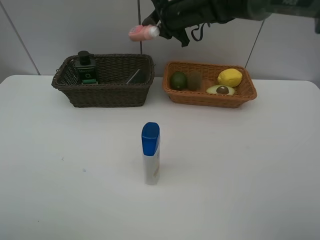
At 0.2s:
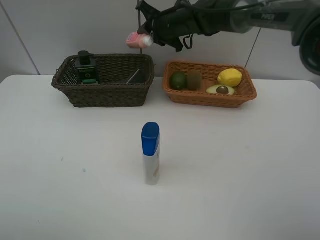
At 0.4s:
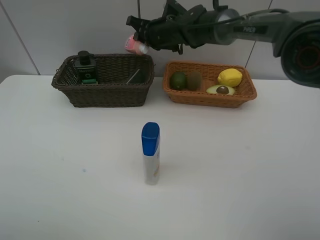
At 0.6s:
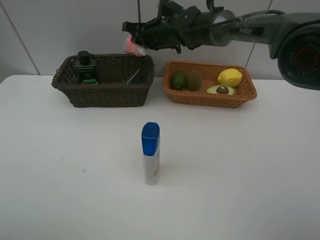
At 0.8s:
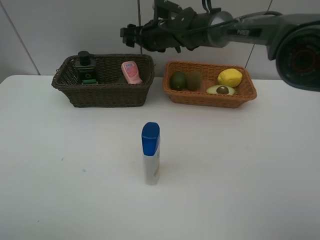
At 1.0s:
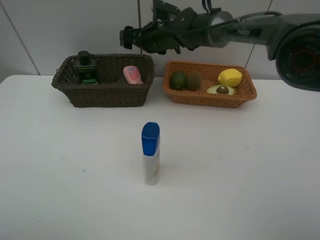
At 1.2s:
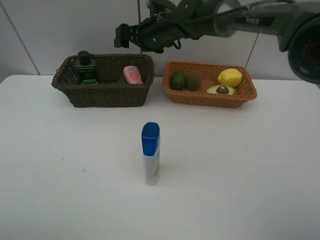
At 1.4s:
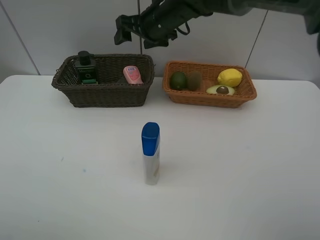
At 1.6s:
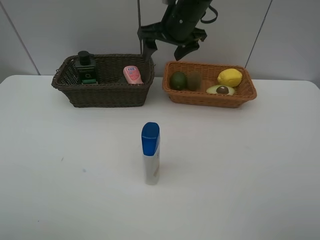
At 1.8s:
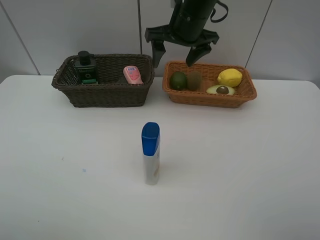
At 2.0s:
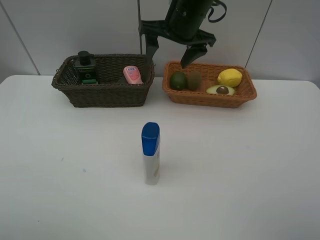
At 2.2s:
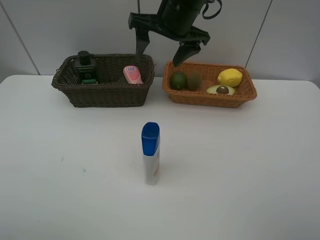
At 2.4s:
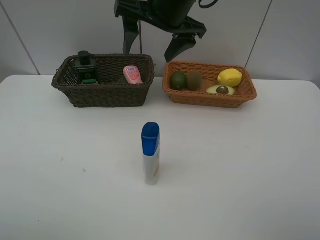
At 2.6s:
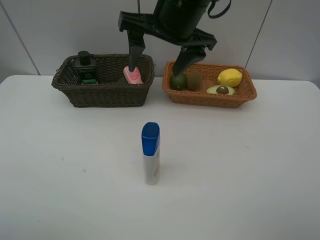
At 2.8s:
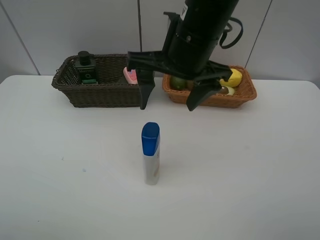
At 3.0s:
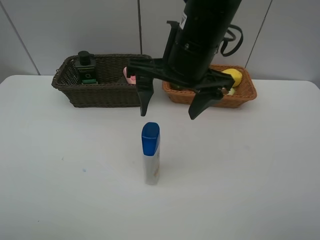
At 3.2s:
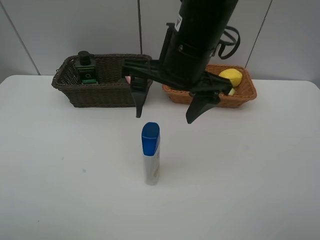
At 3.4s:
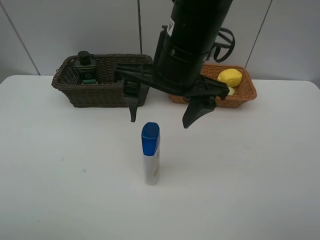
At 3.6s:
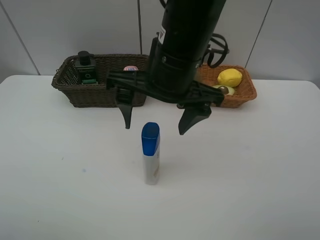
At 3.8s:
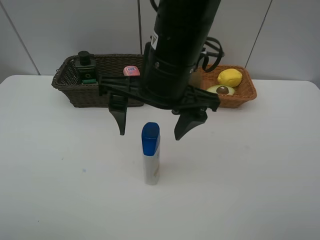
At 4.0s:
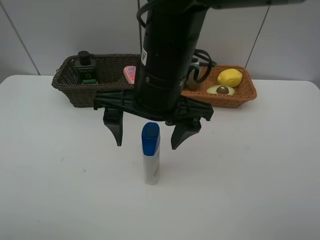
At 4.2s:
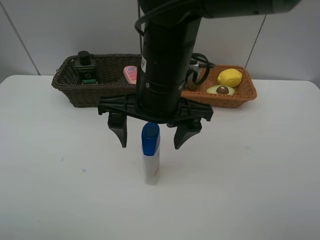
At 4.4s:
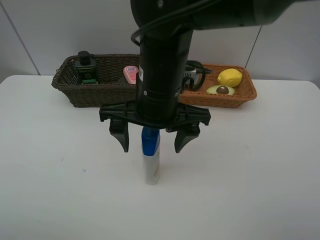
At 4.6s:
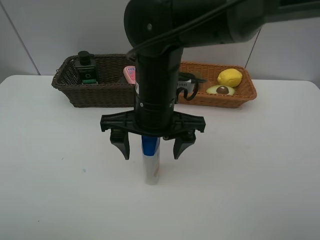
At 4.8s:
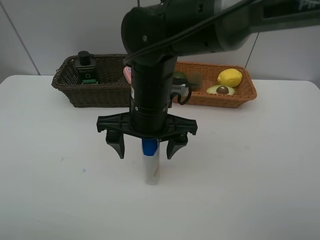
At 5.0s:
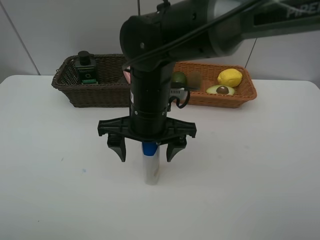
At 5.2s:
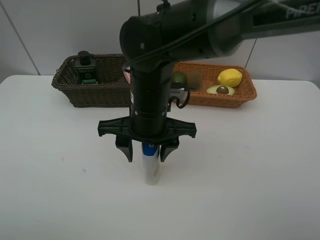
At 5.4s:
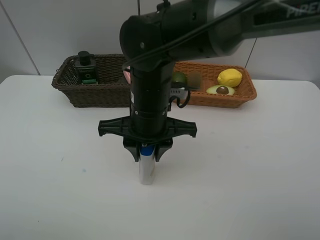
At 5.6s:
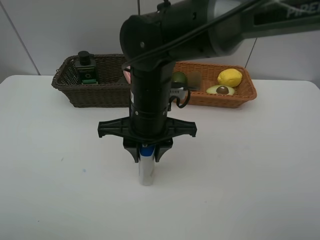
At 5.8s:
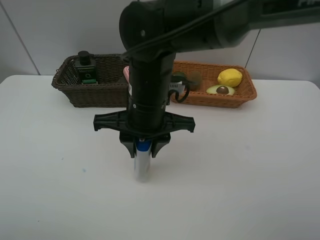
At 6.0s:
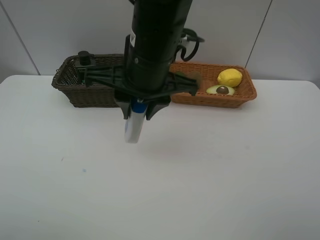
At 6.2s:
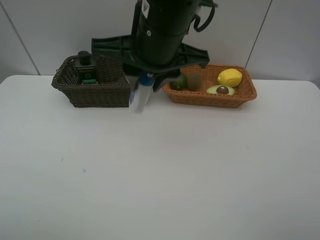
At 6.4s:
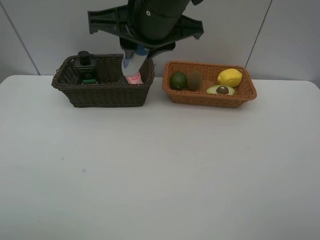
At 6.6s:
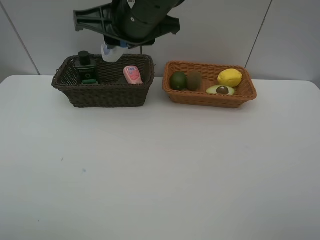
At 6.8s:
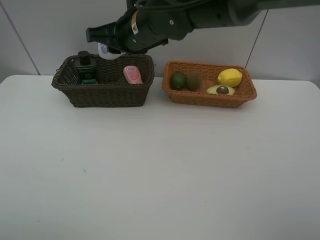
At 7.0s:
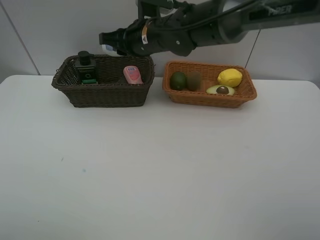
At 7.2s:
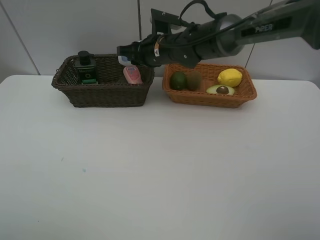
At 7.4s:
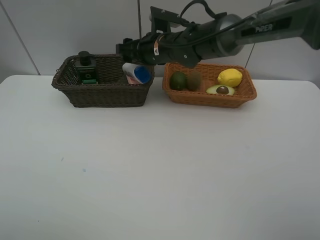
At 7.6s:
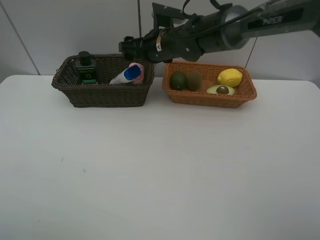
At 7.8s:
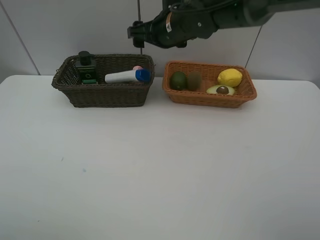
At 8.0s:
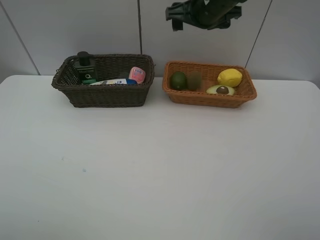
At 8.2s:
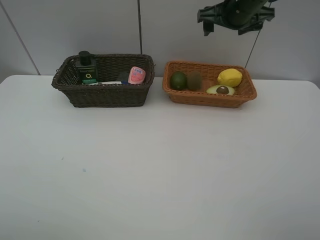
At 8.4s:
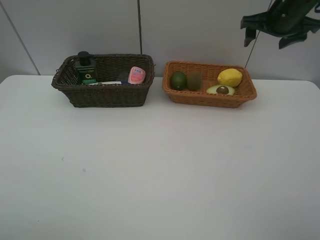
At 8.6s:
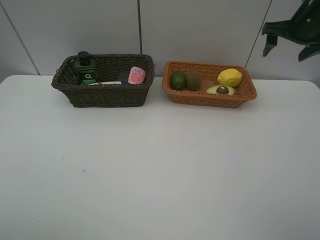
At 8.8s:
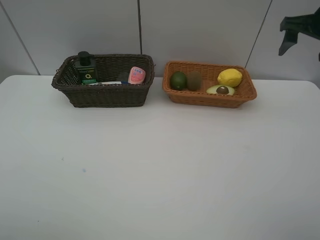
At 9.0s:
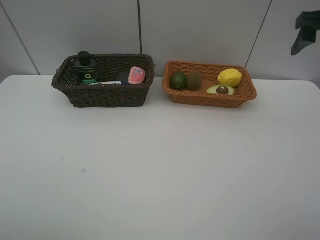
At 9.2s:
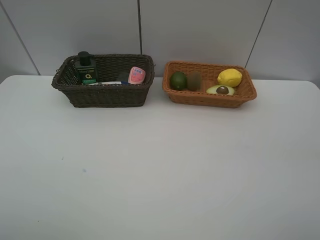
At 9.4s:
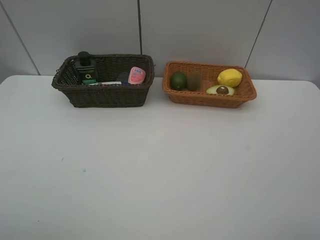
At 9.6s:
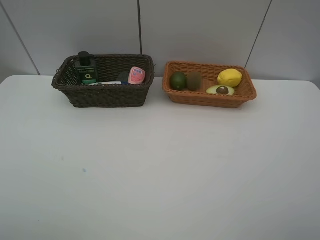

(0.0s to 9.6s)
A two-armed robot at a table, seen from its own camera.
Task of the whole recording: Place multiple objects separately in different baskets.
Step, 1.2s - 5.8s: Pick up the shampoo with right gripper.
Step, 6.0s - 7.4s: Place the shampoo in the dark basket with right gripper.
0.0s - 1.6s: The right gripper heads backward, covering about 5 cm, and opens.
1.6s - 3.2s: The right gripper goes roughly 15 cm backward.
3.2s - 4.8s: The right gripper is displaced downward and to the left by approximately 10 cm.
4.8s - 6.4s: The right gripper shifts approximately 15 cm upward, and closes its fingers.
6.4s - 8.0s: The right gripper goes about 20 cm forward and to the right, and opens its fingers.
8.0s - 9.6s: The right gripper moves backward and to the right, about 40 cm.

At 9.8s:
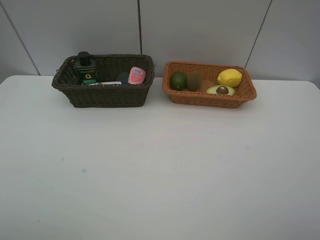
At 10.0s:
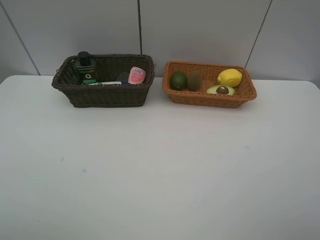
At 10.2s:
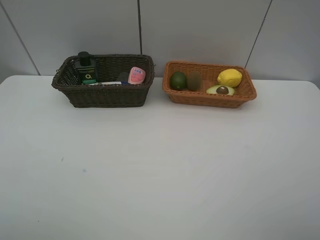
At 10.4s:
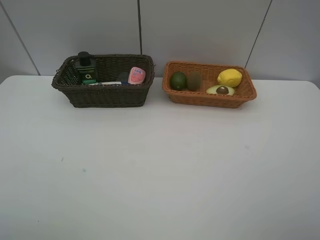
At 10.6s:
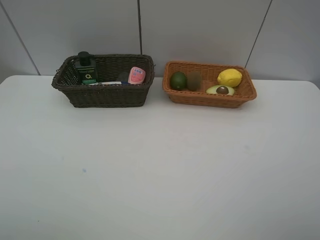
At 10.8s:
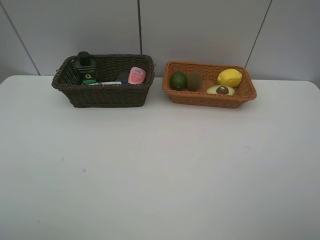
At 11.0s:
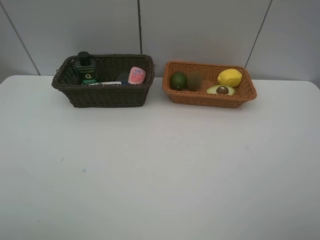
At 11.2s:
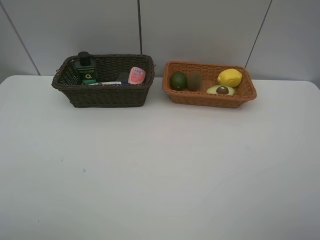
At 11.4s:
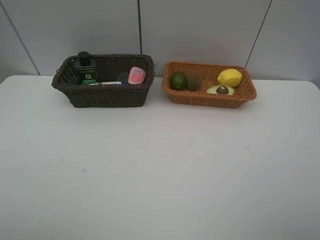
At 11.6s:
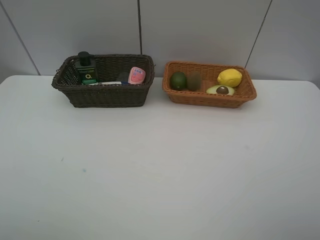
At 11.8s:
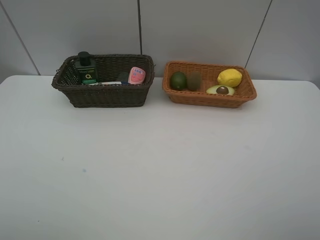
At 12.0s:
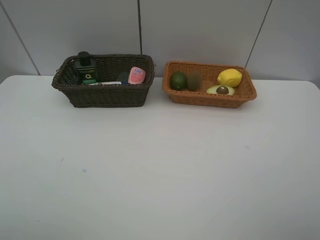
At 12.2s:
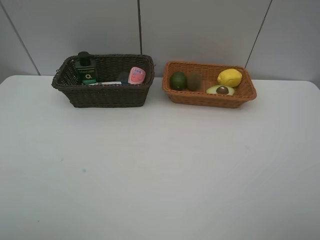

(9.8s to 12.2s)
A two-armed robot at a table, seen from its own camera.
Task of the whole recording: Place multiple objects separately in different baskets.
11.0s - 12.2s: Neither gripper changes place.

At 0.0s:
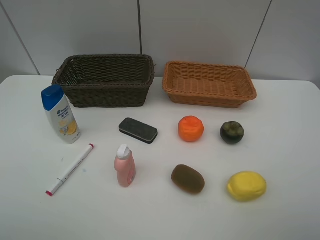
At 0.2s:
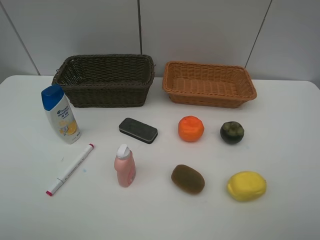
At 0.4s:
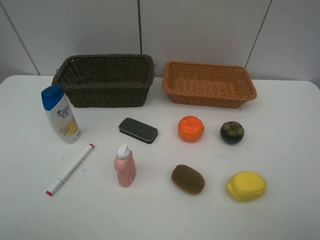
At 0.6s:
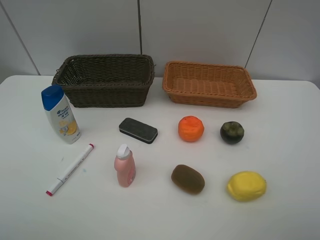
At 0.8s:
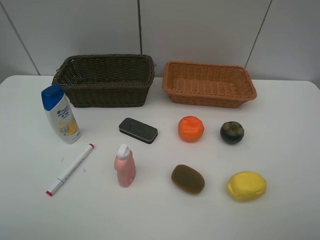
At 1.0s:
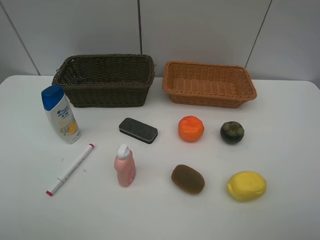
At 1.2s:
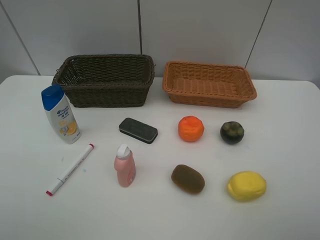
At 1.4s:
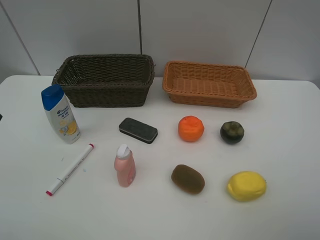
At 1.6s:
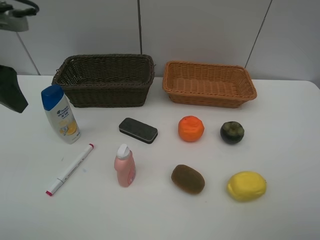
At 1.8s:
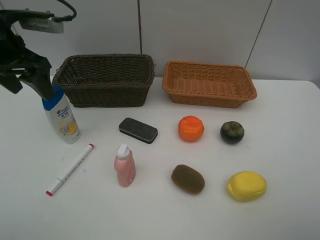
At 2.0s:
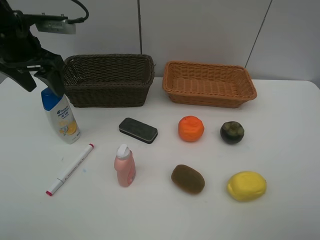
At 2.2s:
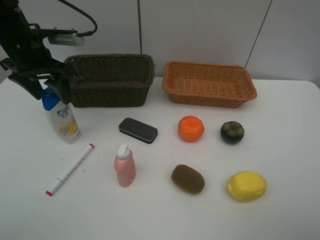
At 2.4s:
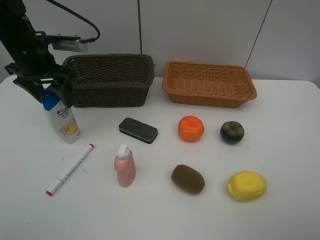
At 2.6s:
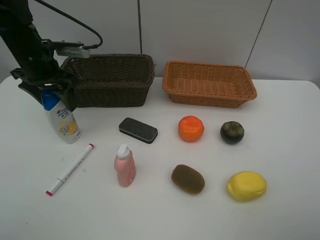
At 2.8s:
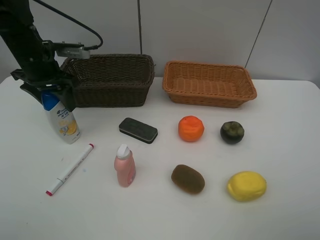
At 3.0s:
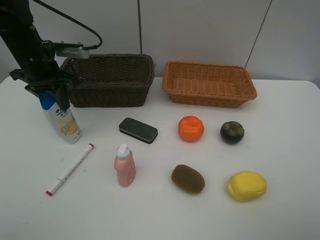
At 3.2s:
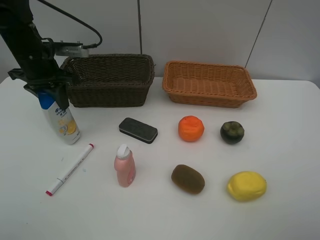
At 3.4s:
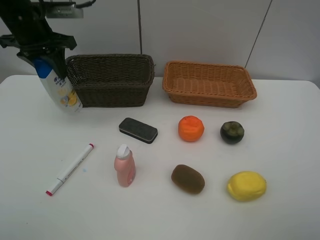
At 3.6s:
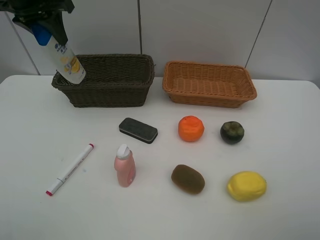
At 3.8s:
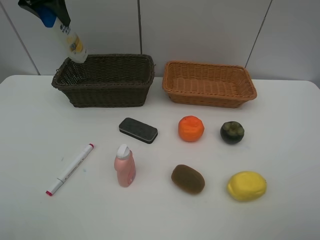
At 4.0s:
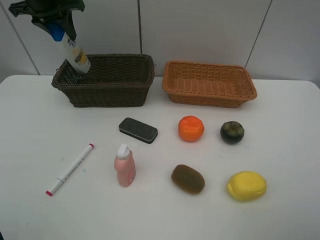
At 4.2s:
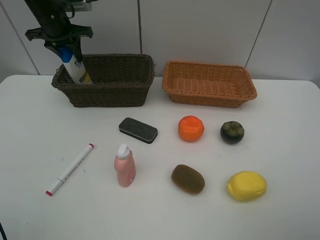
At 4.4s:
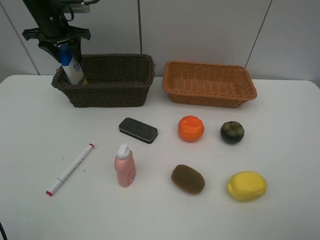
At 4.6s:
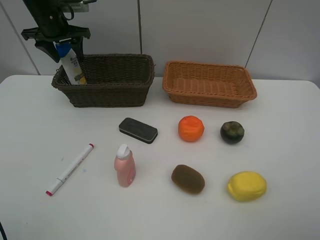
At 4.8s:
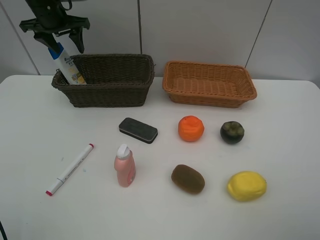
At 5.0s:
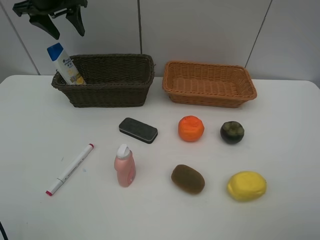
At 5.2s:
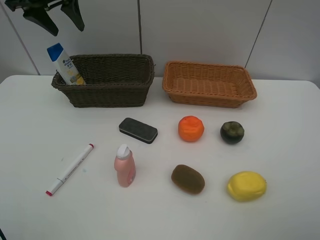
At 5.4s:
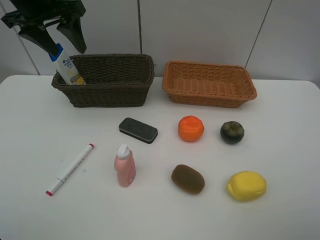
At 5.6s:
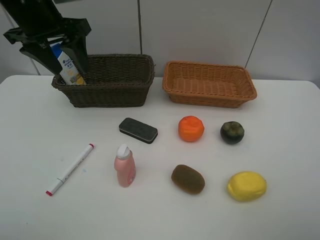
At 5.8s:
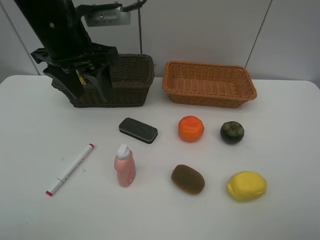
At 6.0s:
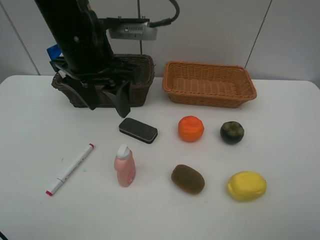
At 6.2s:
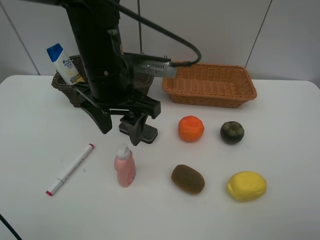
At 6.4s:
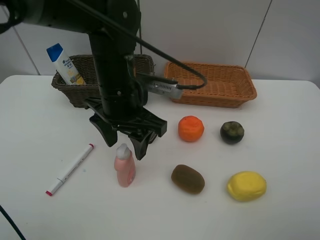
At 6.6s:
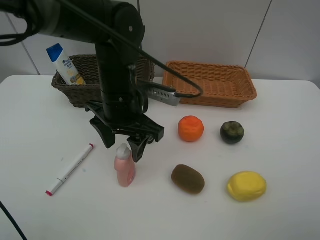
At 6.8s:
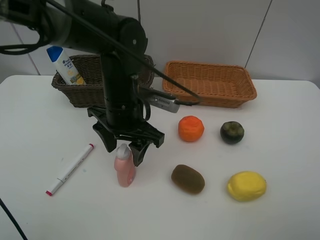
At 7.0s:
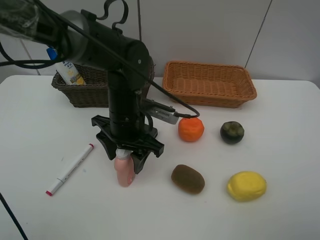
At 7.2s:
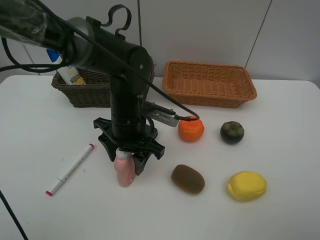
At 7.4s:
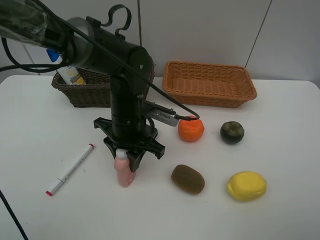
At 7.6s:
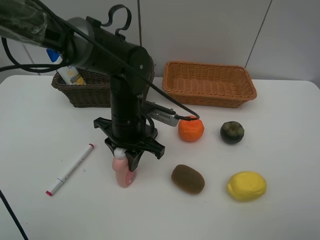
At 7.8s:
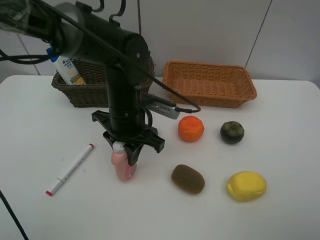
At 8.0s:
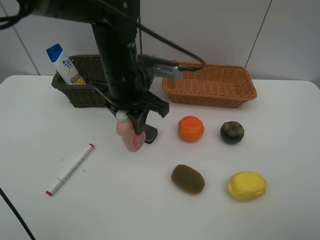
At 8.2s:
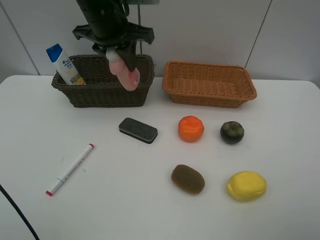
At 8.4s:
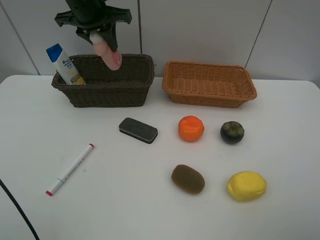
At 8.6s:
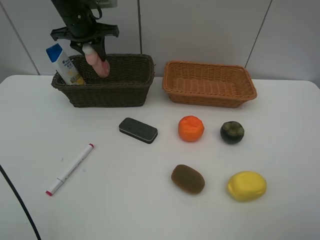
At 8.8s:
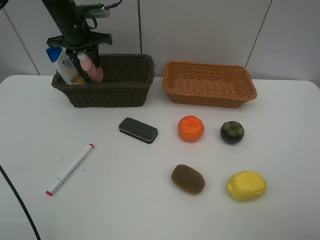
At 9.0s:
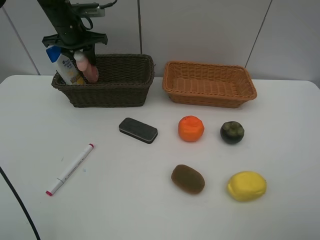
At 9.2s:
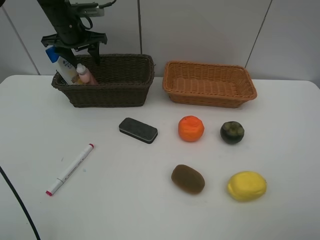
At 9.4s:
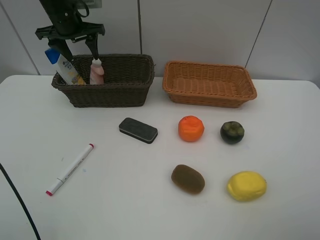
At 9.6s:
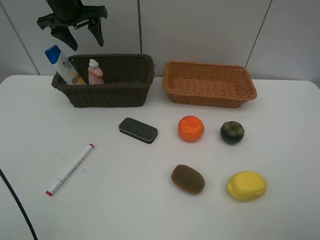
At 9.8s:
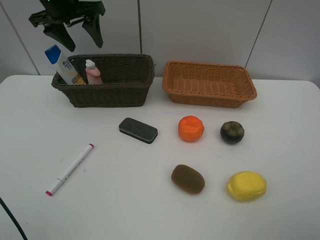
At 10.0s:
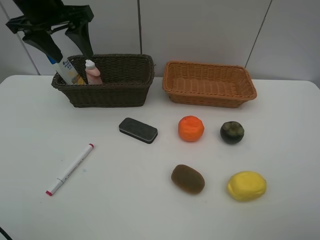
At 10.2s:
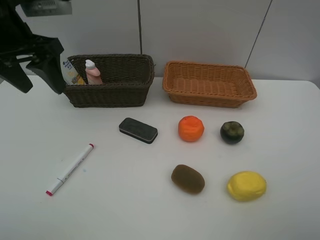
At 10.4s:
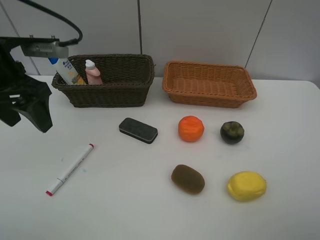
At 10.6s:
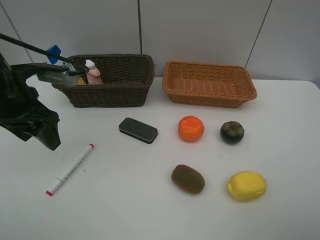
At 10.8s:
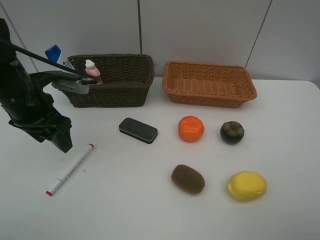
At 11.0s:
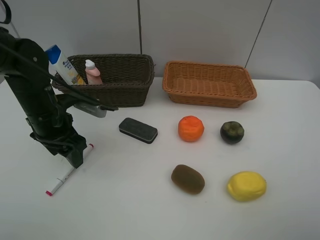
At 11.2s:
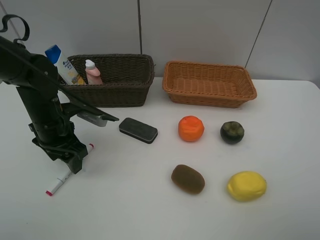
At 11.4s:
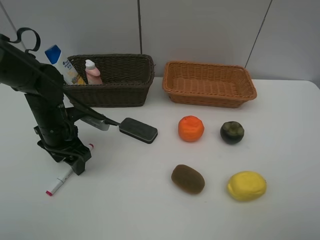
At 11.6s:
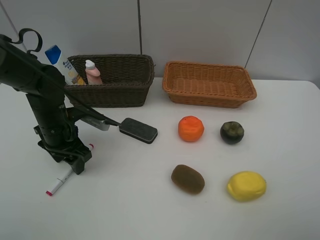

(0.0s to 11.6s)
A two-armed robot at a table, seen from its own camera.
Task of the whole recording: Place multiple objects separately in different baskets.
Step, 0.0s - 3.2s: Pick up the shampoo with left gripper.
Step, 3.4s - 4.8s: Place the shampoo in the dark basket with left gripper.
Step, 5.0s - 7.8s: Pick up the laundry detergent with left gripper.
Step, 8.0s - 9.4s: Place the laundry detergent in the dark basket with left gripper.
1.4s - 2.8s: The left gripper moves forward and downward, about 20 cm.
2.8s - 4.4s: The left gripper is displaced forward by some 10 cm, reaches roughly 15 cm upward, then returns, and closes and opens again.
4.4s - 5.8s: The left gripper is displaced backward and to the right by about 25 cm.
5.8s - 7.2s: The left gripper moves downward and to the right, approximately 15 cm.
7.2s - 8.8s: The left gripper heads forward, to the left and upward, covering approximately 30 cm, and closes.
8.8s - 10.2s: The left gripper moves backward, about 20 cm, and opens its fingers.
10.2s - 11.6s: The left gripper is displaced downward by about 20 cm.
